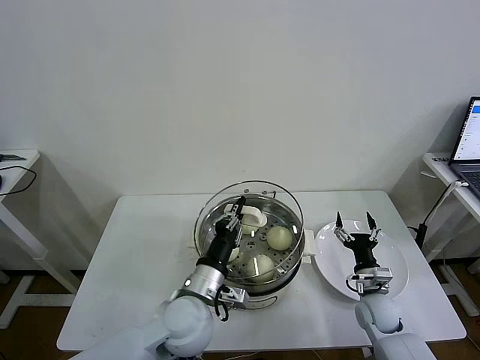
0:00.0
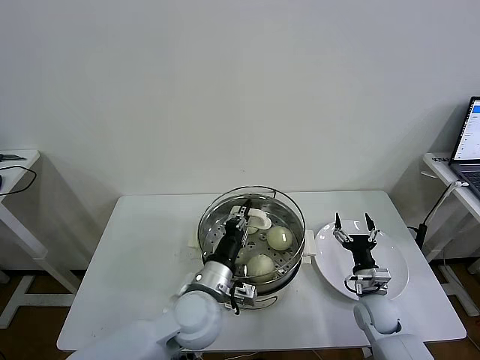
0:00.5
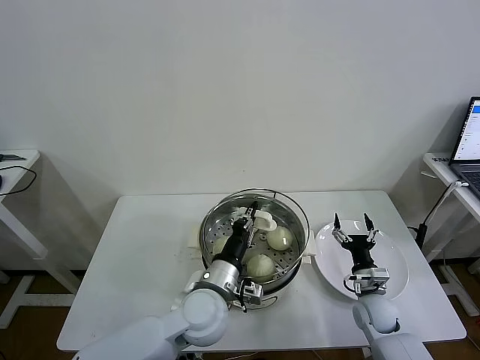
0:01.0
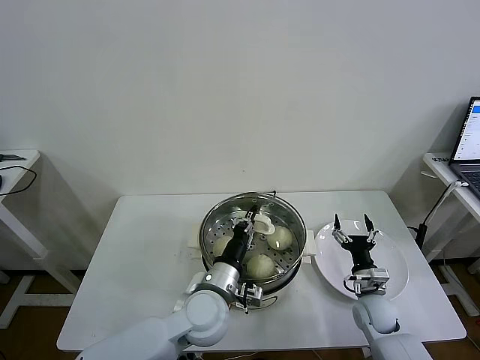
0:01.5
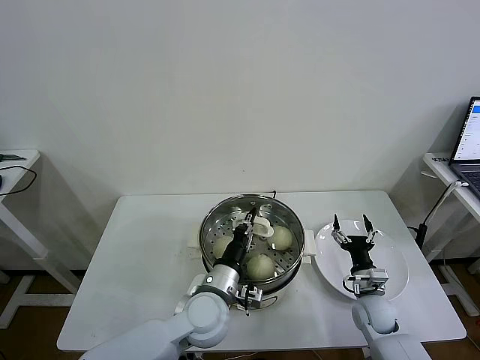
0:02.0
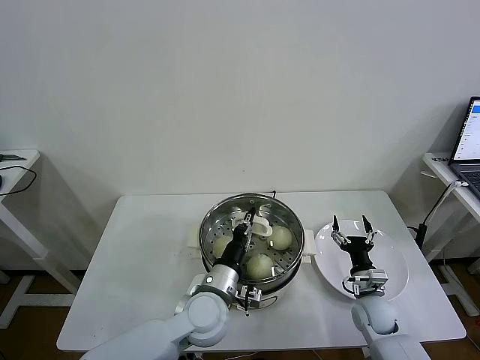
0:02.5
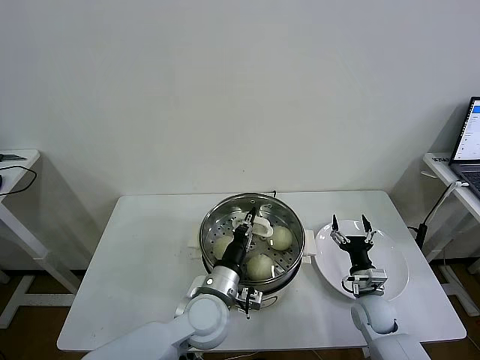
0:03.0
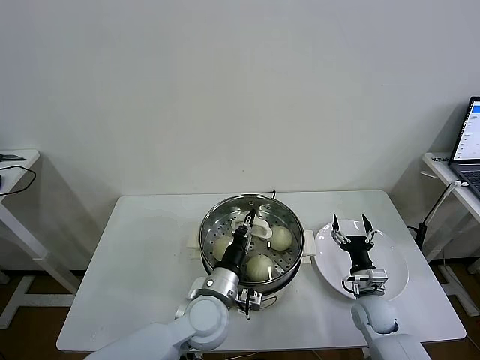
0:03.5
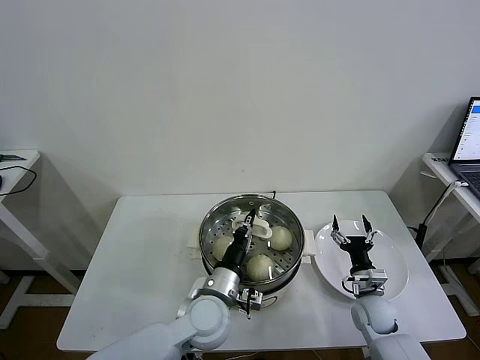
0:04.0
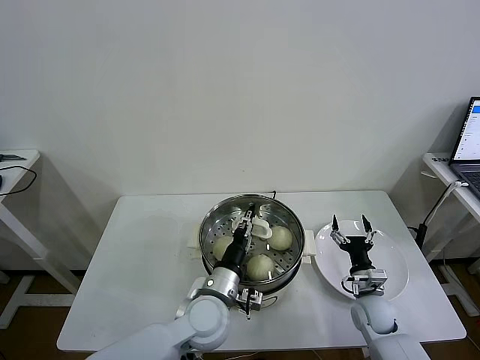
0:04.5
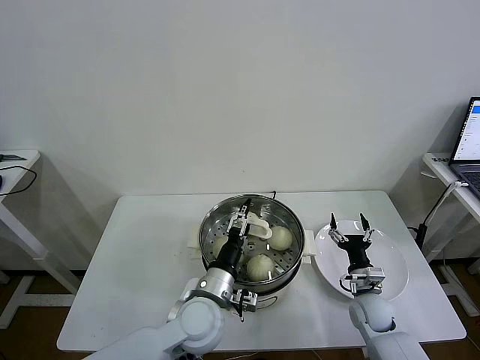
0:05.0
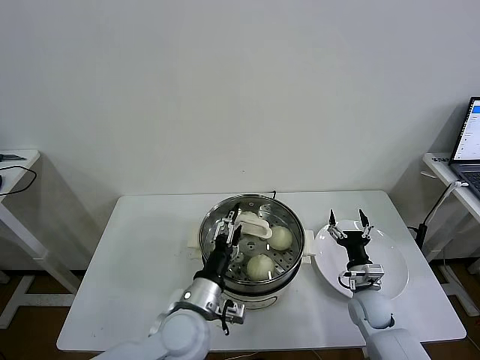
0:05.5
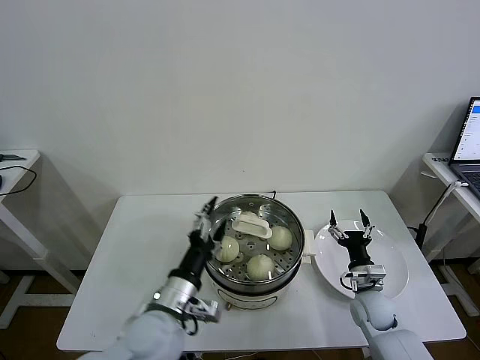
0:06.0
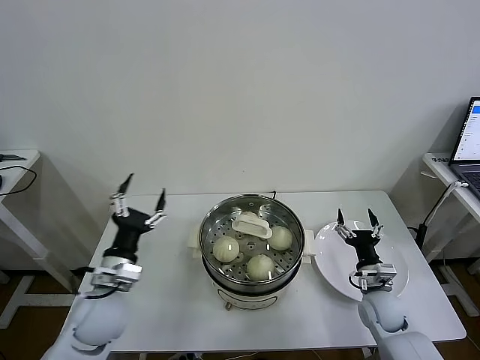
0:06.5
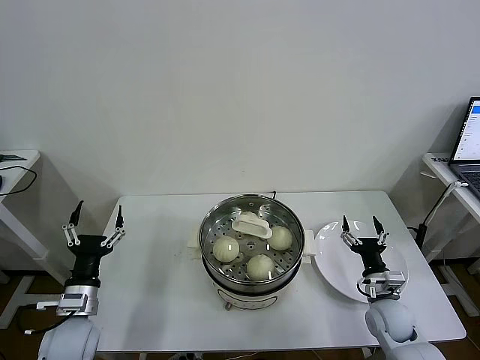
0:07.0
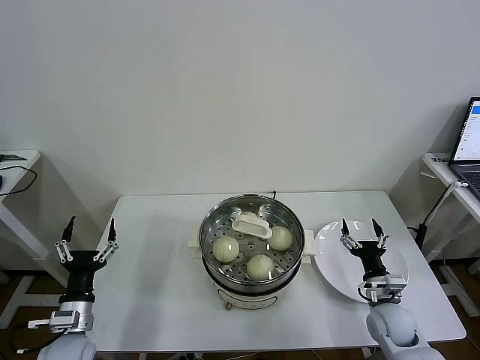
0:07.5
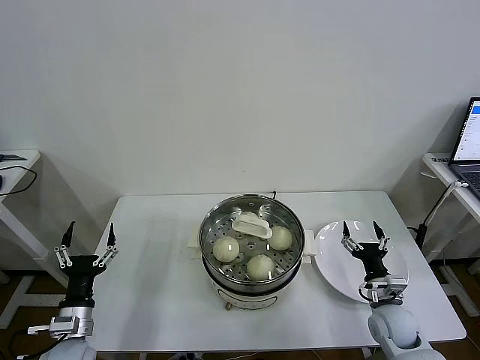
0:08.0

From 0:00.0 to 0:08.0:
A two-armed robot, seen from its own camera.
Task of the whole recording: take steamed baozi put them in steamer then cover it.
Step, from 0:00.0 to 0:04.5: Place the pot lid on the steamer with left gripper.
From 0:00.0 to 0:02.0: There are only small adjustments of the grippers.
From 0:02.0 to 0:04.0: Neither gripper changes place.
From 0:04.0 to 0:06.0: The left gripper travels to the left, upward and backward by approximately 10 cm, and opens up.
From 0:06.0 to 0:08.0: The left gripper travels to the left and downward by roughly 25 cm. The right gripper ends up roughly 5 cm from where it was.

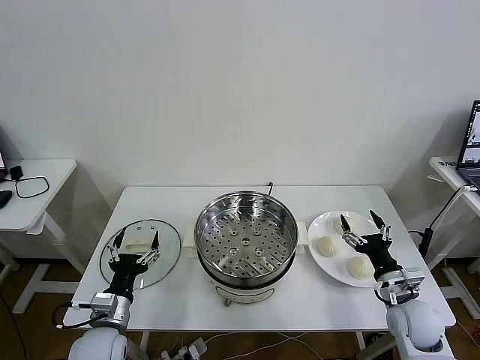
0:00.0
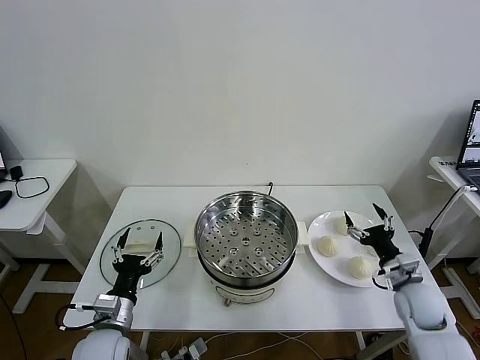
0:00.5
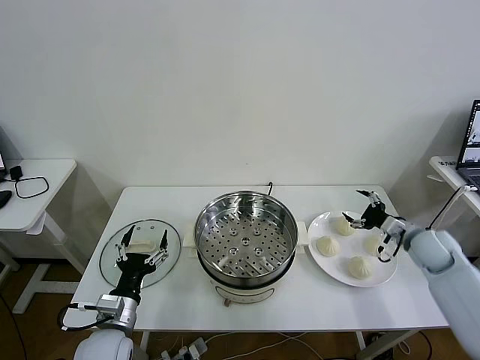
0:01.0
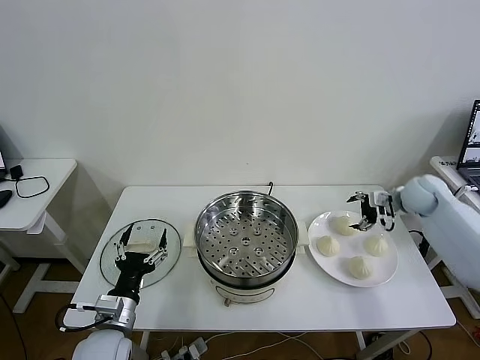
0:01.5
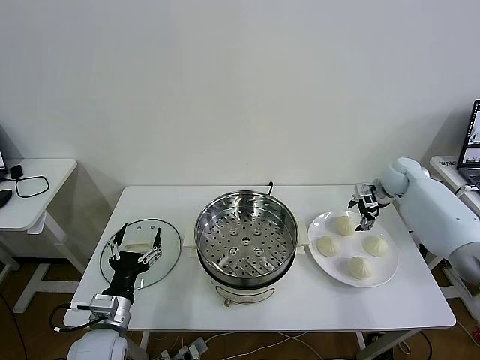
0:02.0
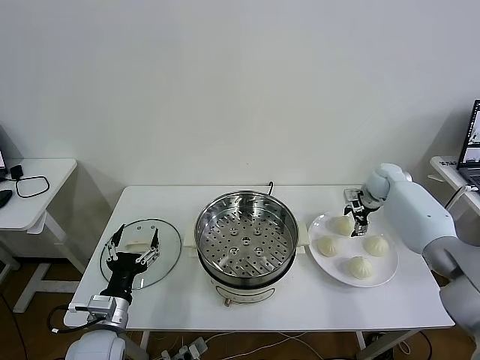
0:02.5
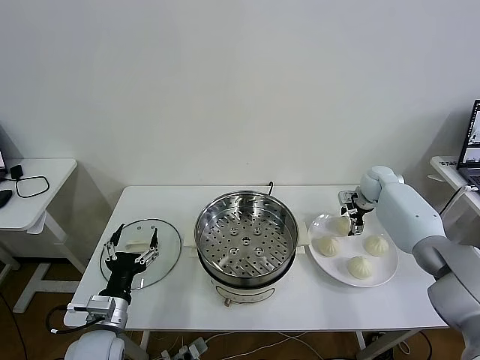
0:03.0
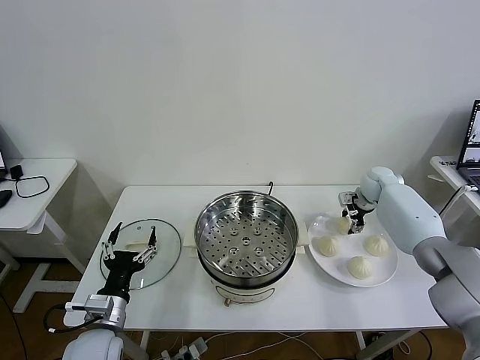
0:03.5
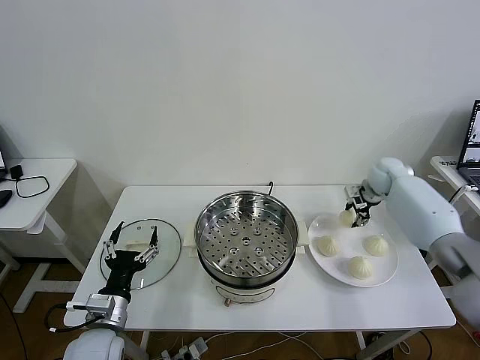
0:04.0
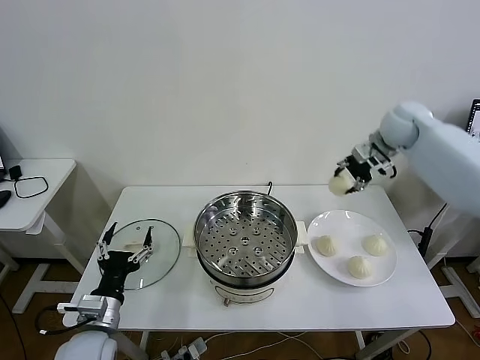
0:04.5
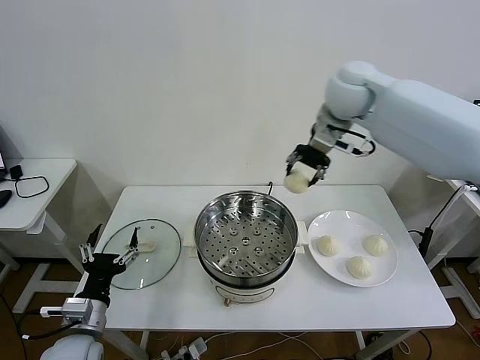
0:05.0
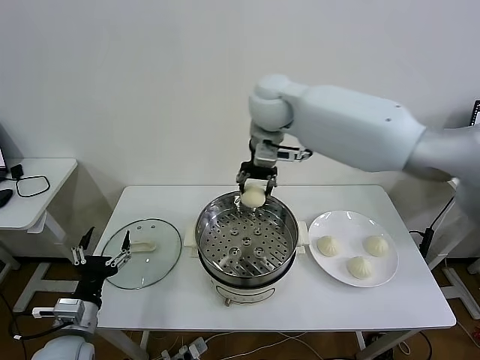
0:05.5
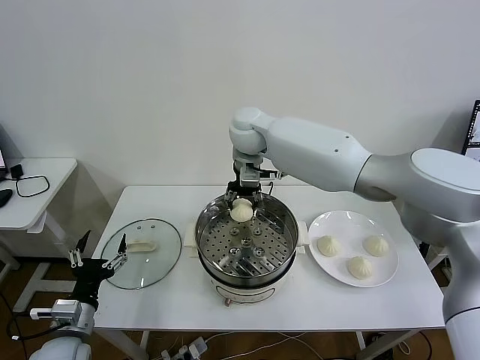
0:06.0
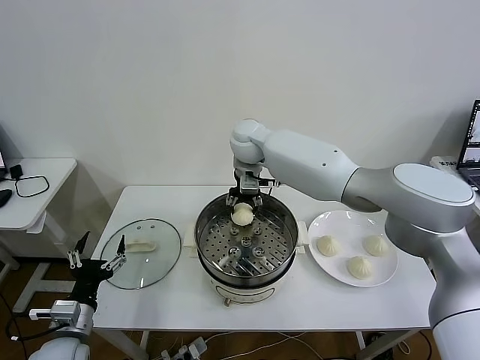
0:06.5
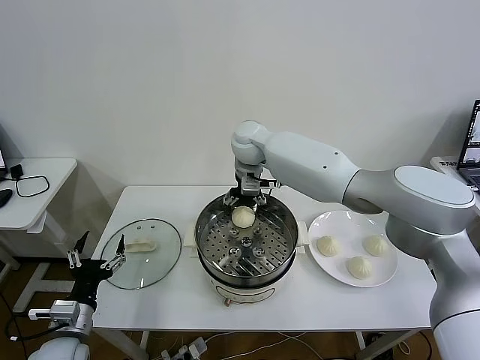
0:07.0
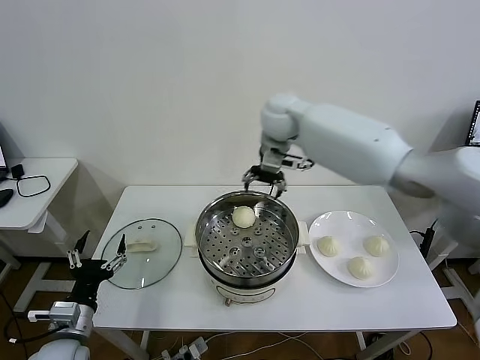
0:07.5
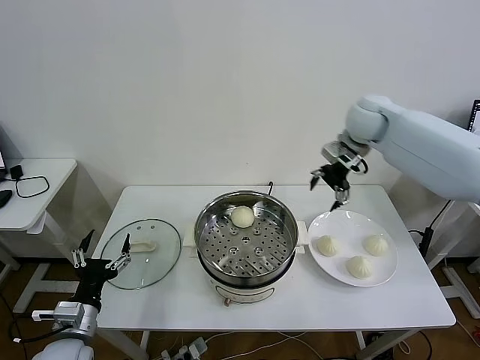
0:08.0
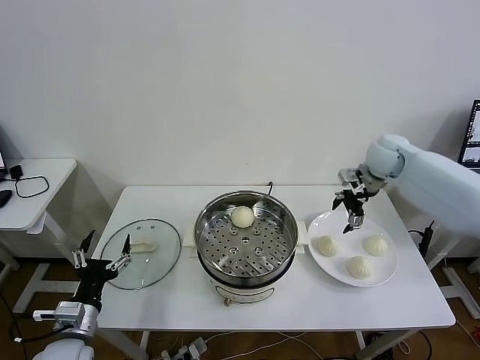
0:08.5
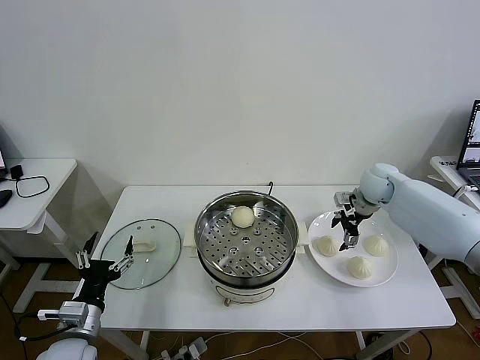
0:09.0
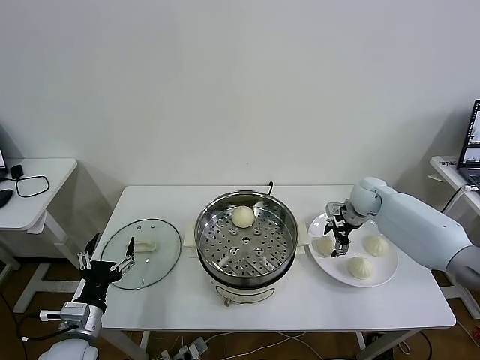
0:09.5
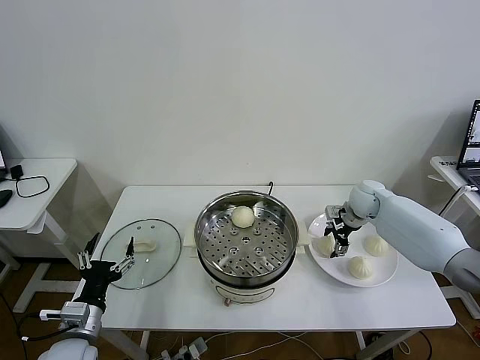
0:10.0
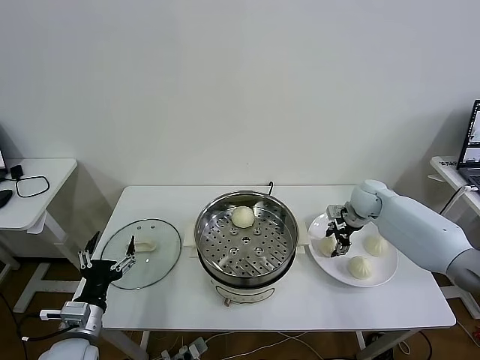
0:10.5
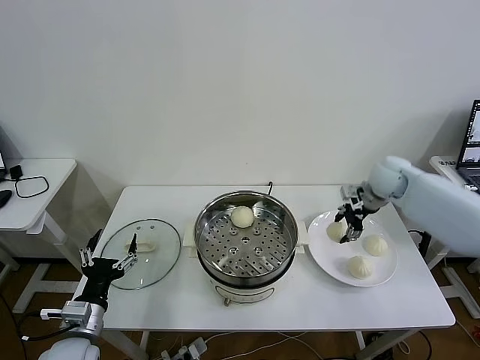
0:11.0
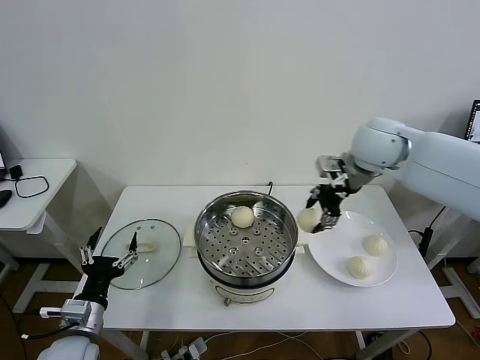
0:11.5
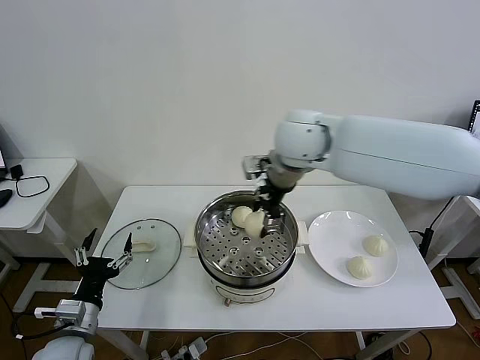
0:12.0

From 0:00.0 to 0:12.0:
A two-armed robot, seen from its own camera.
Task of the whole recording: take steamed baozi put them in steamer then cover it.
Step, from 0:00.0 to 0:03.0: Grasp the baozi in the plate with right gripper.
Step, from 0:04.0 to 0:07.0: Place the baozi on the steamer with right gripper.
Step, from 0:07.5 to 0:10.0: Grasp the baozi in the plate with right gripper.
From 0:02.0 to 0:04.0: The right gripper closes up.
From 0:04.0 to 0:06.0: The right gripper travels to the left by approximately 40 cm. Meanwhile the left gripper travels to the left by some 5 cm.
From 0:06.0 to 0:08.0: The right gripper is displaced to the right by some 30 cm, and opens its fingers.
From 0:08.0 to 0:10.0: The right gripper shifts roughly 20 cm downward, and closes up.
From 0:10.0 to 0:12.0: The right gripper travels to the left and upward by some 35 cm.

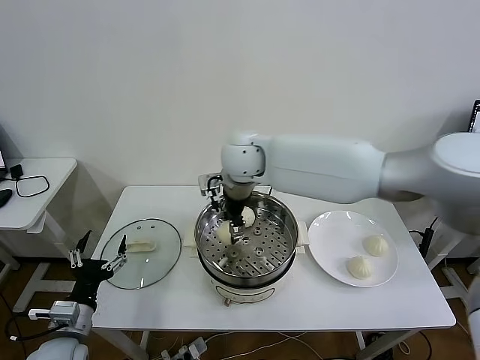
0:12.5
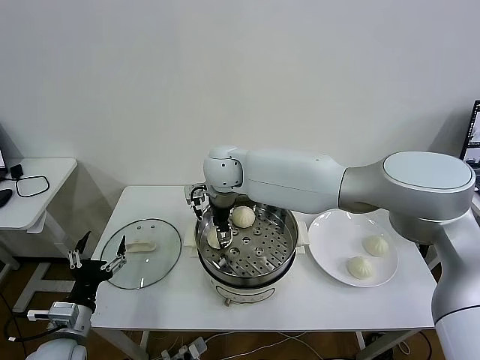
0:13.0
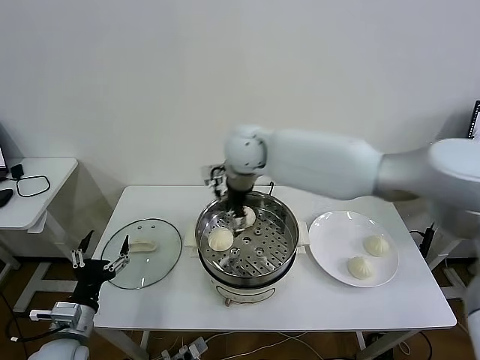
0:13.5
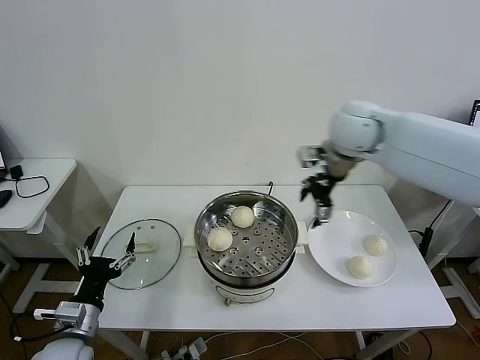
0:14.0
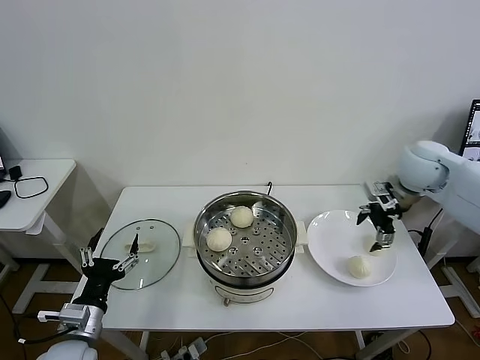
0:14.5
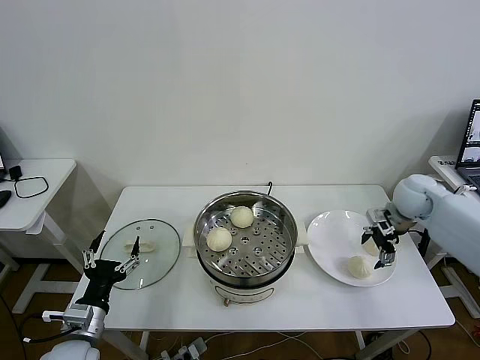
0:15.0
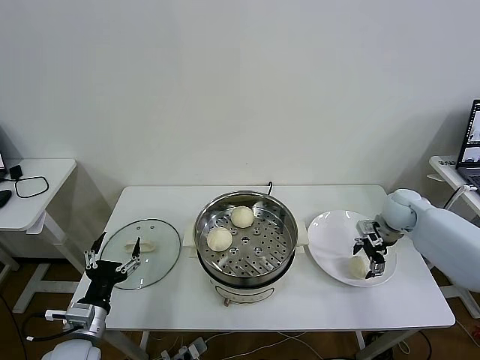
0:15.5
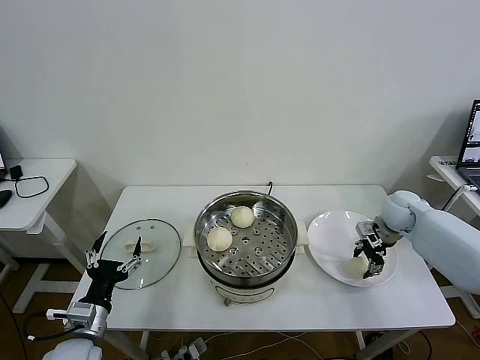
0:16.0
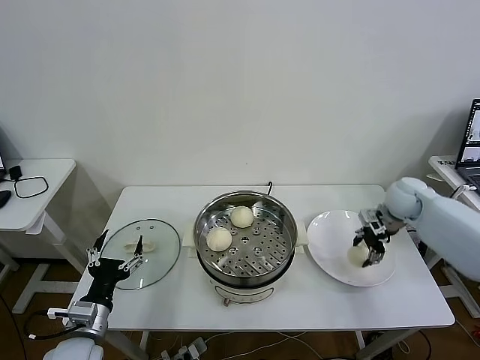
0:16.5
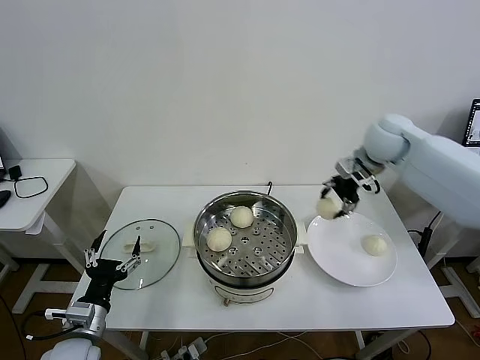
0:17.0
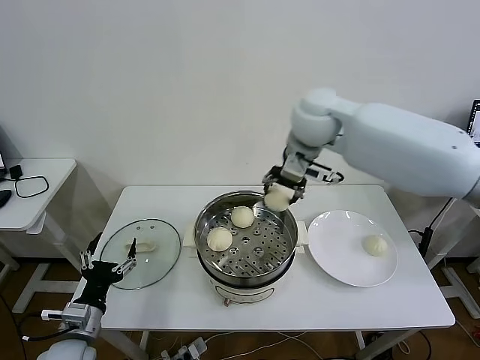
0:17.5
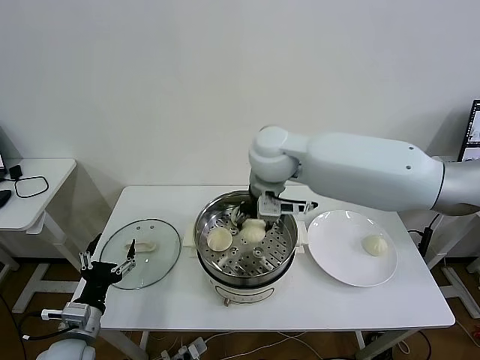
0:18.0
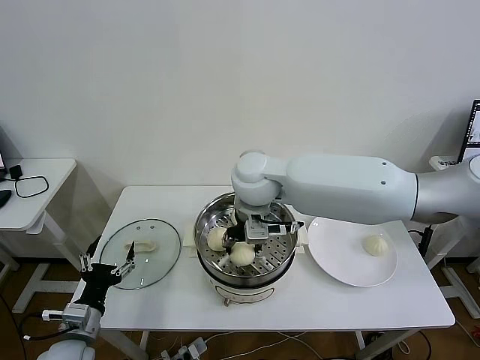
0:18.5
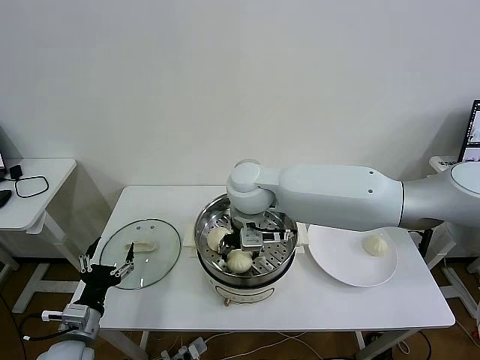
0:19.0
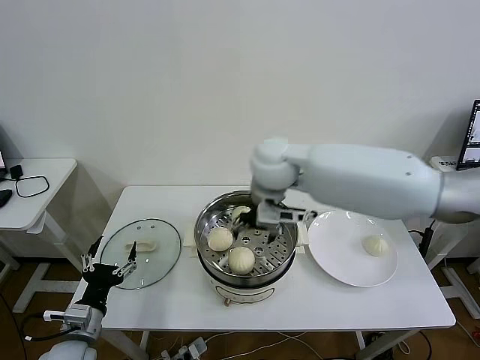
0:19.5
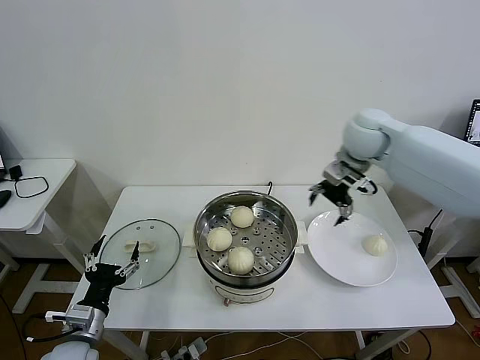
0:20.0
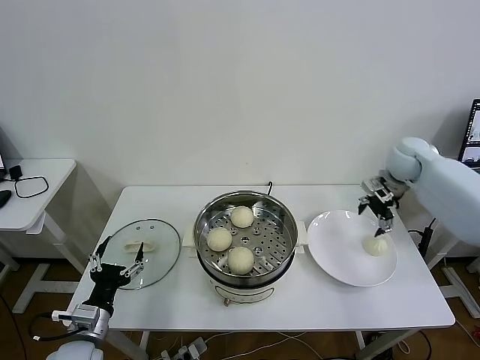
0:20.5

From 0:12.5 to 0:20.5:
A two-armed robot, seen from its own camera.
Task of the whole recording: take steamed baozi put them in steamer then cover it.
Step, from 0:13.5 to 0:16.0: Grasp the baozi in the plate with right gripper.
Step, from 0:16.5 to 0:19.0: Place the baozi on the steamer with right gripper.
From 0:12.5 to 0:14.5: The right gripper goes roughly 40 cm to the right, and opens up.
From 0:14.5 to 0:16.5: The right gripper heads downward, covering roughly 10 cm, and closes its fingers.
From 0:16.5 to 0:18.5: The right gripper is displaced to the left by some 40 cm.
From 0:18.5 to 0:20.5: The right gripper shifts approximately 40 cm to the right, and opens its fingers.
